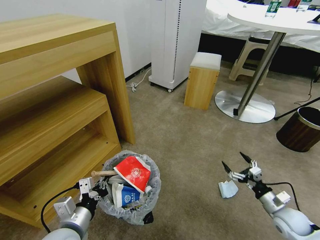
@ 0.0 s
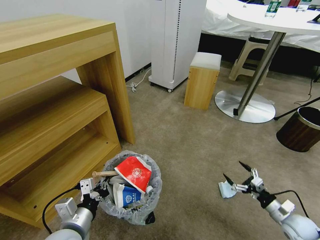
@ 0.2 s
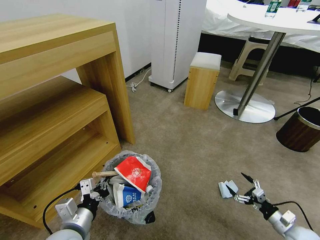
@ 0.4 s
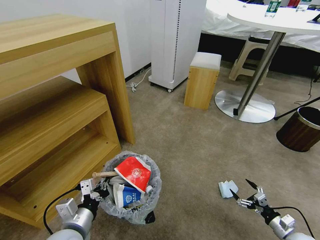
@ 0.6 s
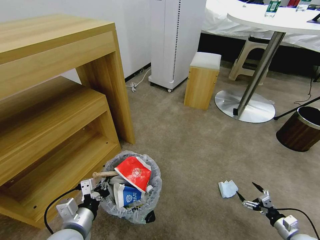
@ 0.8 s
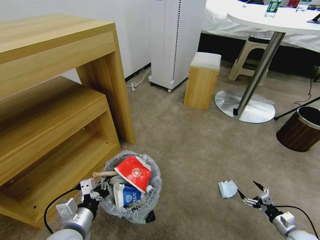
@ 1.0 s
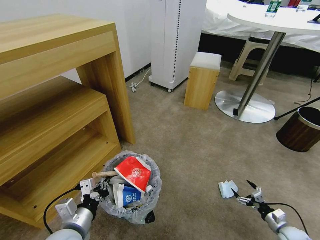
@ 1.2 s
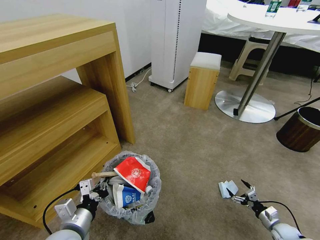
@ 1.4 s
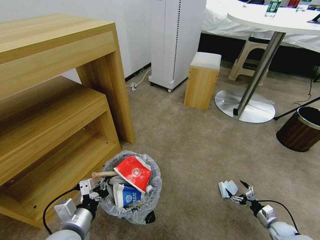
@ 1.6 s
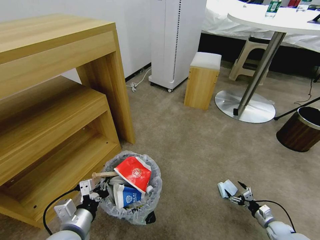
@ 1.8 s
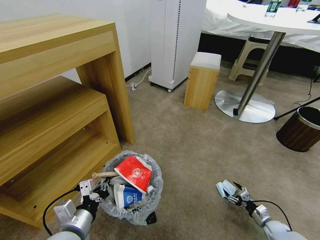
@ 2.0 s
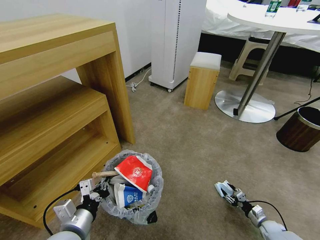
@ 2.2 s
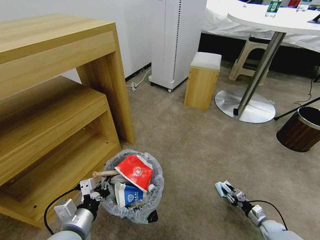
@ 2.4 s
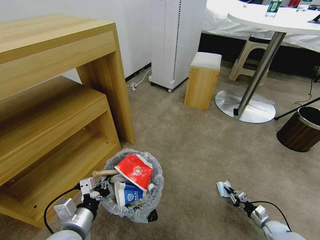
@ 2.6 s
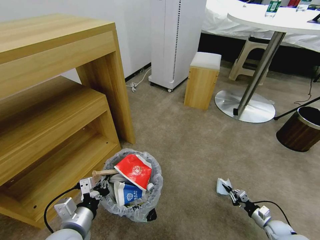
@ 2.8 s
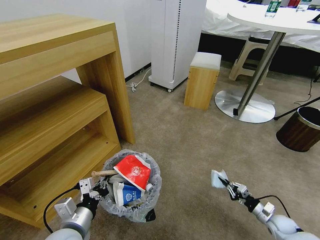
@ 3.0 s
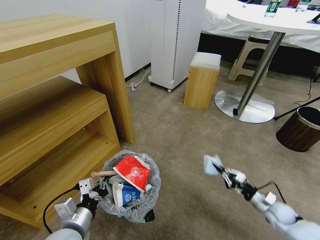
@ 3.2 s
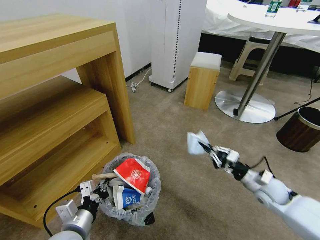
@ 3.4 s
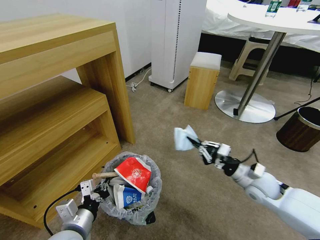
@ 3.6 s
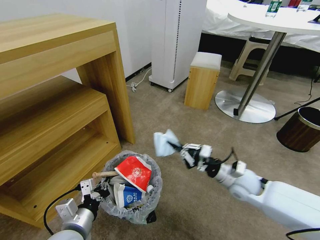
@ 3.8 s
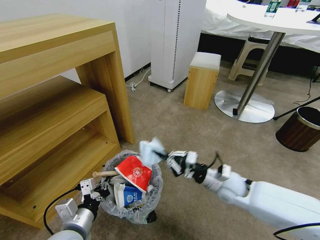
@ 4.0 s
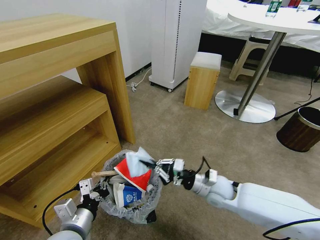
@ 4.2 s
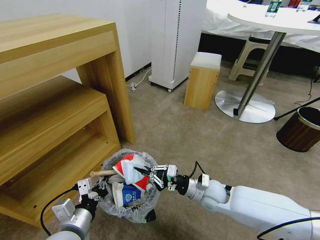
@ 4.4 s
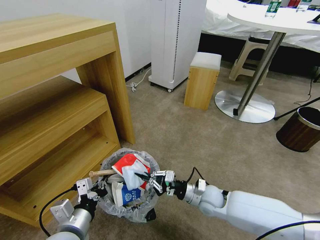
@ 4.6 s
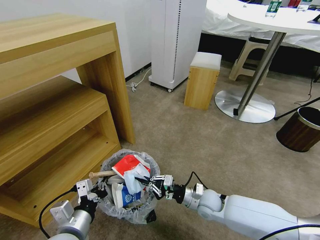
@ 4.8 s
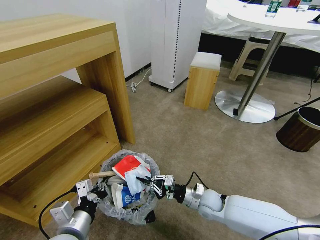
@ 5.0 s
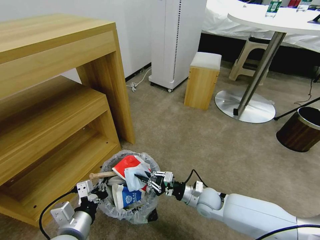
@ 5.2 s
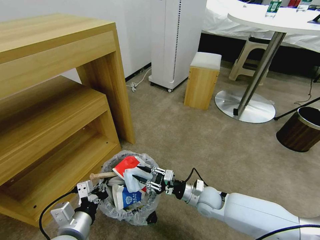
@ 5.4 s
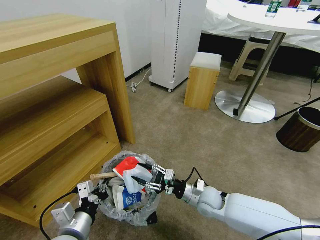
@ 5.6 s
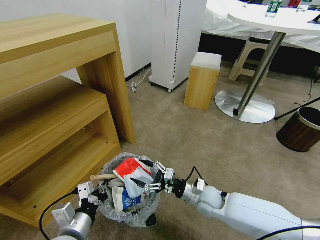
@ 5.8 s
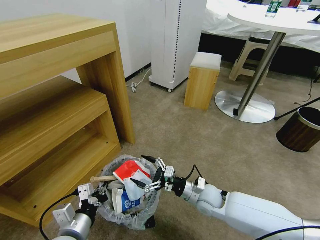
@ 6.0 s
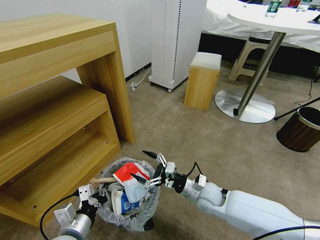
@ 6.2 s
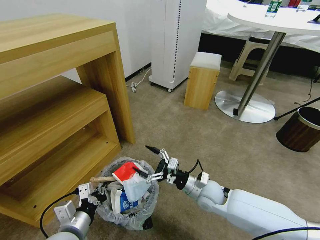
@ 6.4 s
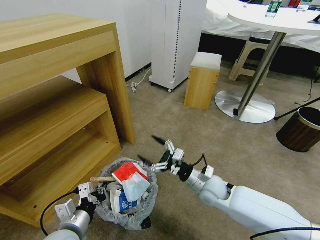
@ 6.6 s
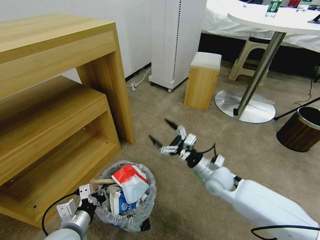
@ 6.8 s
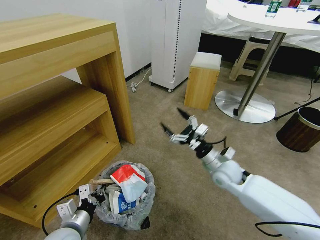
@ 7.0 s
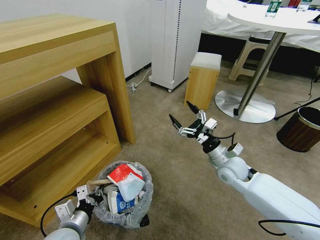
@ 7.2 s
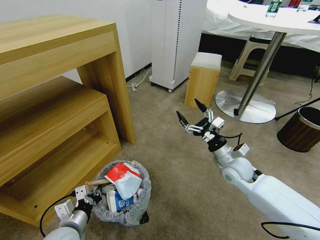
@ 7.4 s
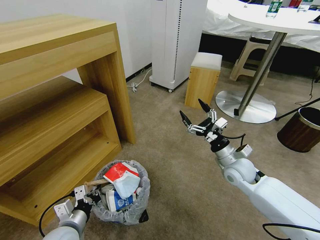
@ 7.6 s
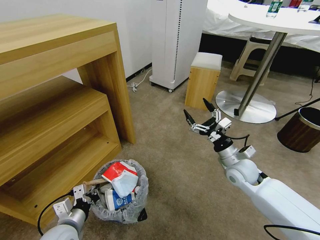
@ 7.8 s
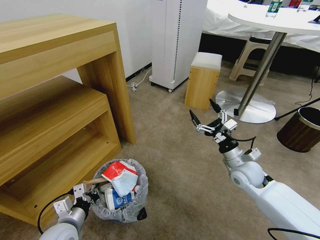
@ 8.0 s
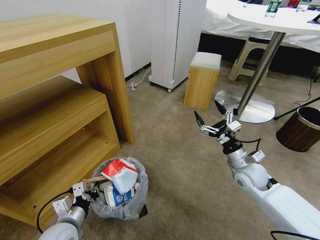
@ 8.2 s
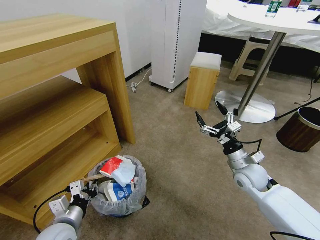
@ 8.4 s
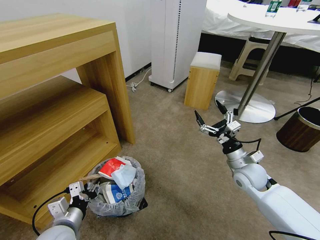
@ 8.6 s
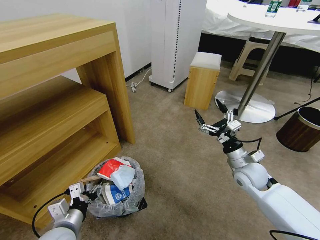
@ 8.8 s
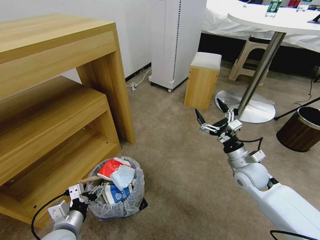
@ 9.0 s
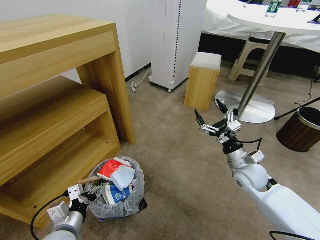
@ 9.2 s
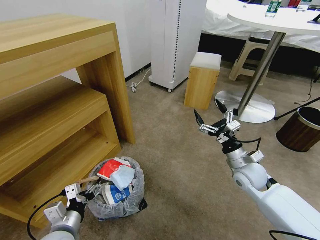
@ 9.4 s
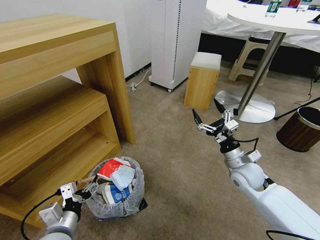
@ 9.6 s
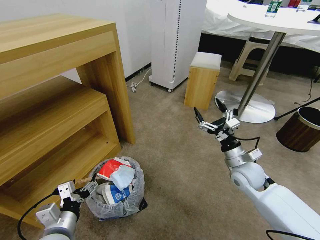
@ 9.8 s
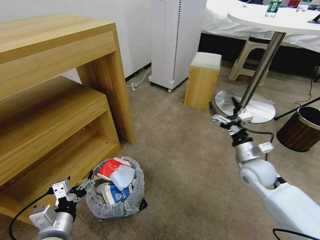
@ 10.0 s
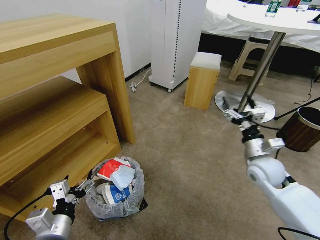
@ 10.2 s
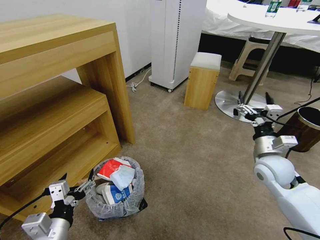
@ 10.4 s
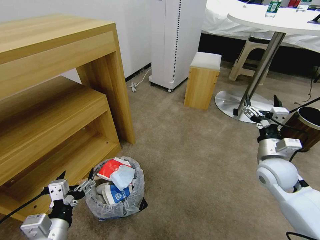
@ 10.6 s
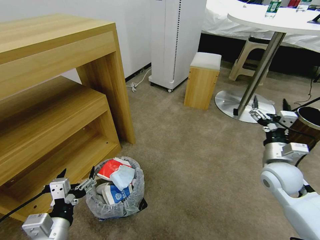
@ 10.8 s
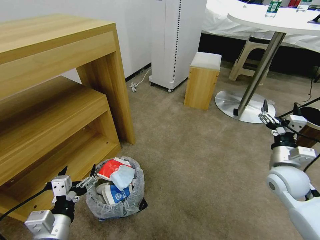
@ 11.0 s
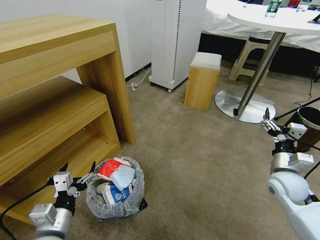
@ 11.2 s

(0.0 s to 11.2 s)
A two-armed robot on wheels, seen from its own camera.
Task of the whole recording: Pick up the trash bin and place the garbage on the floor into it.
0.0 s - 1.6 s: The right gripper travels downward and to the right by roughly 20 cm.
1.6 s - 3.2 s: The right gripper is displaced upward and to the left by about 15 cm, and closes up.
3.2 s - 4.8 s: The right gripper heads to the left, covering about 25 cm.
4.8 s - 6.4 s: The right gripper changes place by approximately 5 cm, and opens.
6.4 s - 8.0 s: The right gripper heads to the right and upward, covering about 15 cm; the left gripper shifts by some 5 cm.
8.0 s - 9.6 s: The left gripper opens its fingers.
9.6 s - 11.2 s: The right gripper heads to the right, covering roughly 10 cm; the left gripper changes place by about 5 cm.

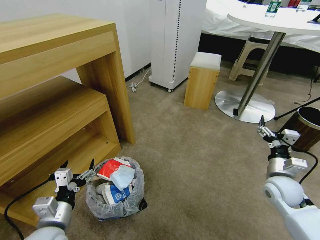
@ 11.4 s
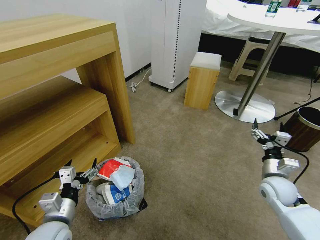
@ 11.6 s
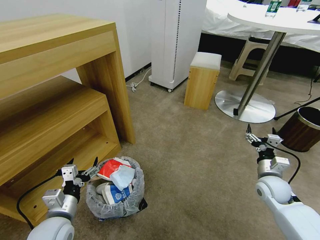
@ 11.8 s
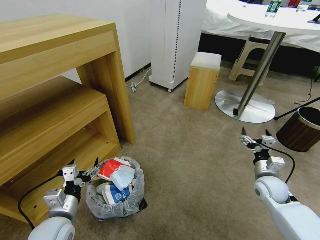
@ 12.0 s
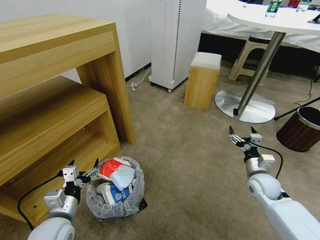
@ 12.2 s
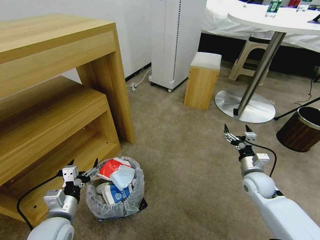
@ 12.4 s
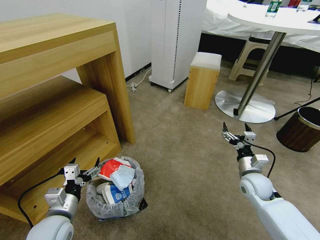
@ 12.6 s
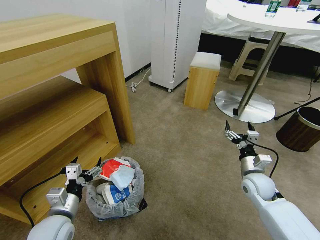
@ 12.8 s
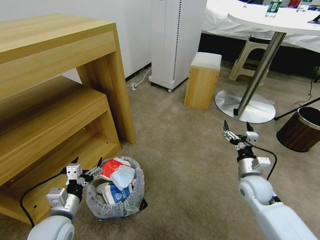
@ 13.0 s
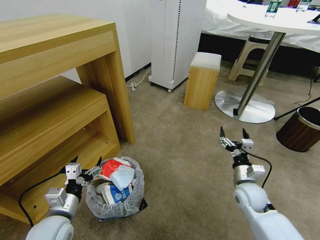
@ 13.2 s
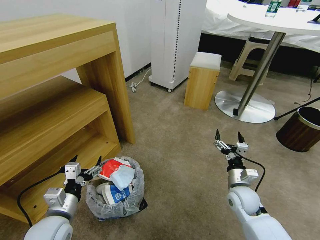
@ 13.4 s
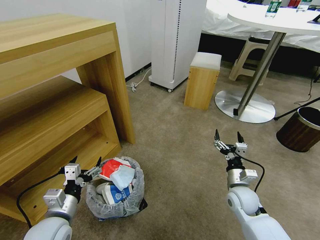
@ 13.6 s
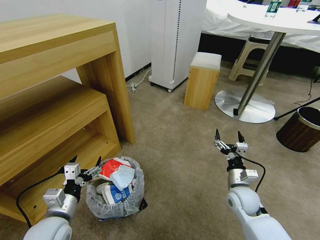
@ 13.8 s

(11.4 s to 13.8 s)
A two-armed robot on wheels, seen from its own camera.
Task of the whole recording: Pick up the trash bin and place the garbage on the floor into it.
11.4 s - 12.6 s: The right gripper shifts approximately 5 cm to the left.
12.6 s - 13.8 s: The right gripper goes roughly 5 cm to the left.
